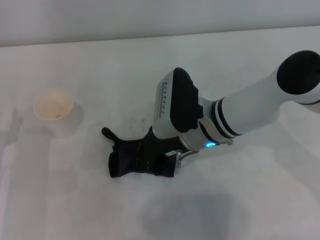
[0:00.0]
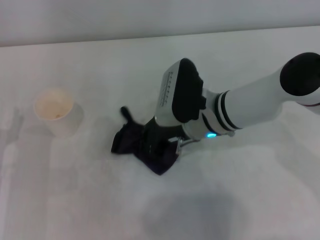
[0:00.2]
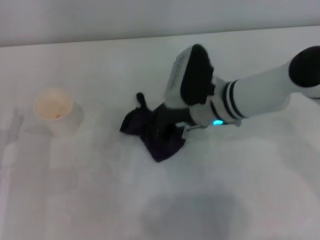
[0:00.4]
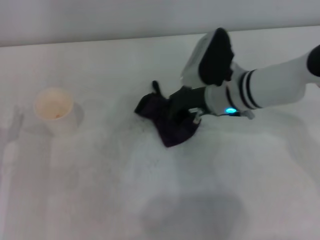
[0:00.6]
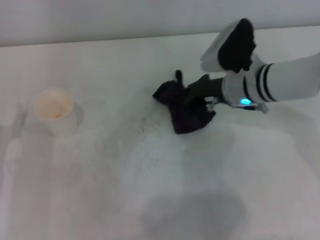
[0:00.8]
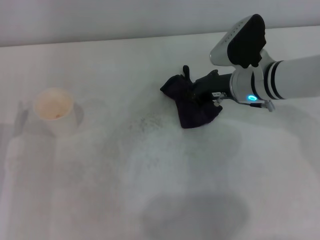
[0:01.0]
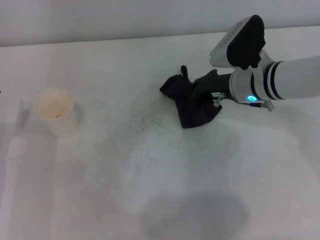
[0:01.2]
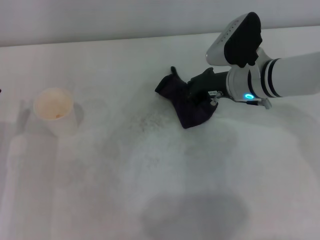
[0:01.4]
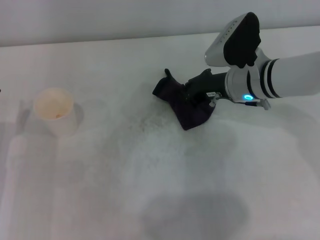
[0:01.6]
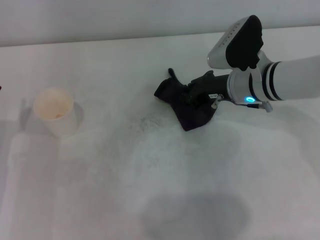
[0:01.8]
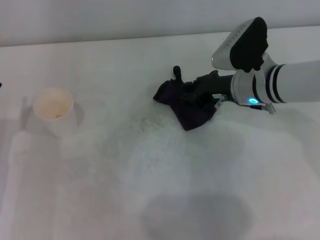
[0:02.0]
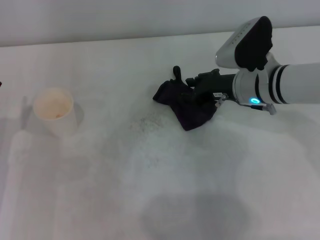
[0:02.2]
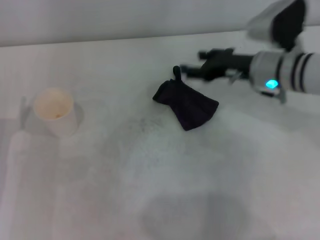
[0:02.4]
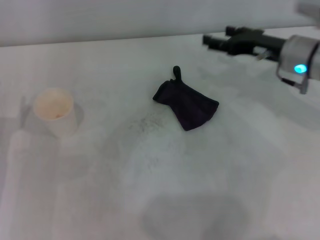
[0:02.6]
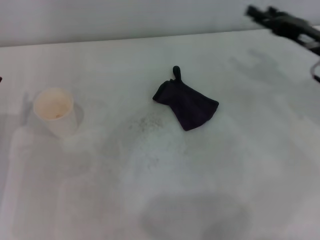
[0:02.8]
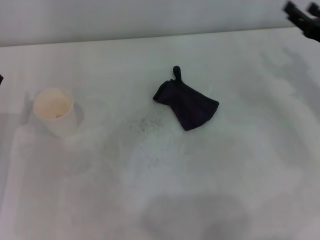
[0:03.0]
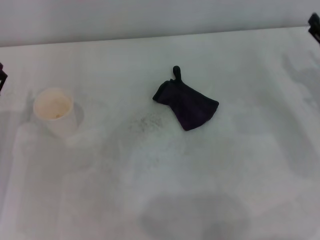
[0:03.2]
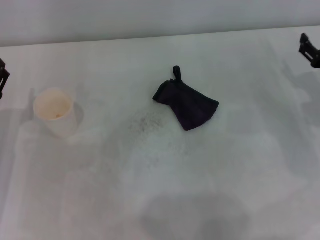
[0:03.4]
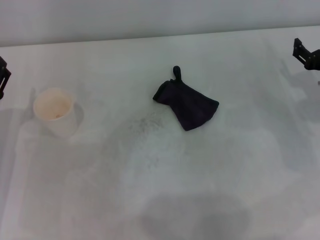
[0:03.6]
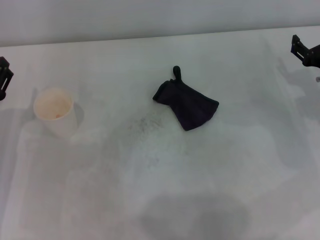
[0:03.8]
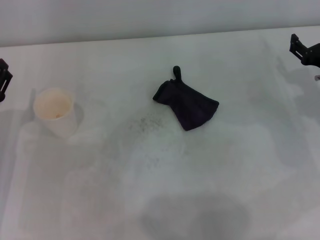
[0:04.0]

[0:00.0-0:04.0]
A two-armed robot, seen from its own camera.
Step, 0:00.8 to 0:02.0: Place the rag on the table with the right gripper.
0:00.0 to 0:01.4: The right gripper goes approximately 10 cm to the right and forward.
0:01.4 to 0:02.6: The right gripper travels to the right by some 10 cm, and opens.
0:02.6 to 0:04.0: The right gripper heads to the right and downward, covering roughly 10 cm.
